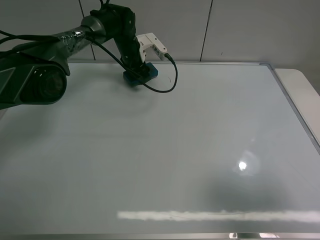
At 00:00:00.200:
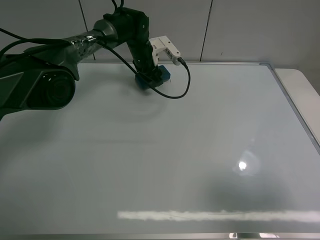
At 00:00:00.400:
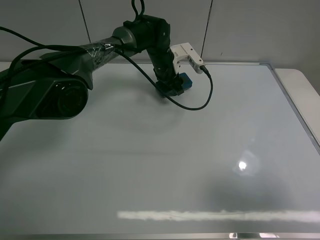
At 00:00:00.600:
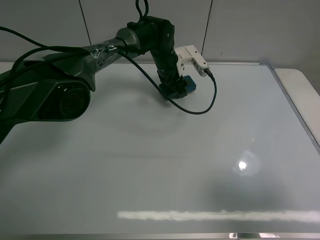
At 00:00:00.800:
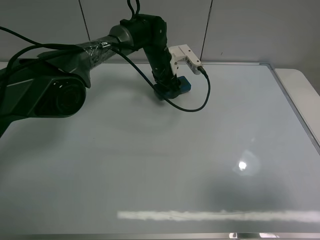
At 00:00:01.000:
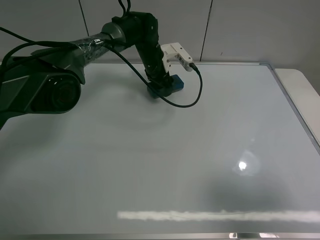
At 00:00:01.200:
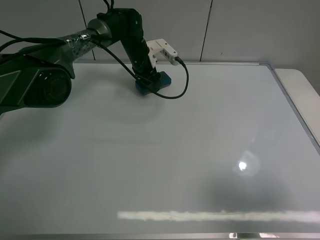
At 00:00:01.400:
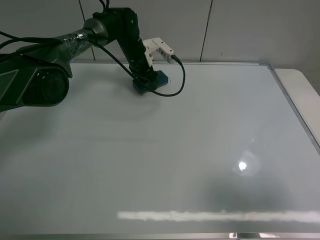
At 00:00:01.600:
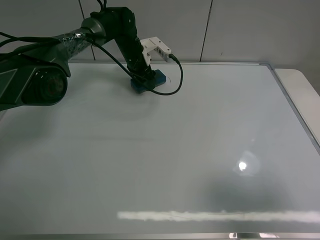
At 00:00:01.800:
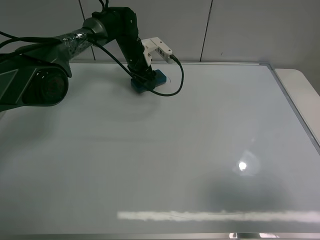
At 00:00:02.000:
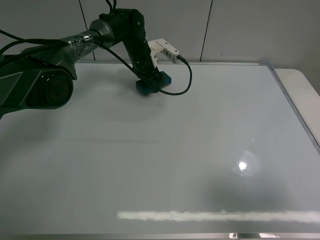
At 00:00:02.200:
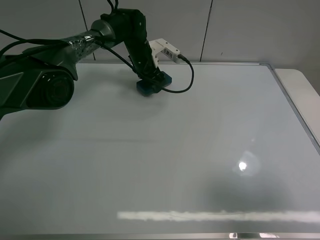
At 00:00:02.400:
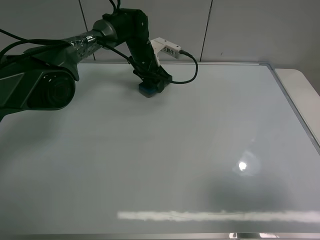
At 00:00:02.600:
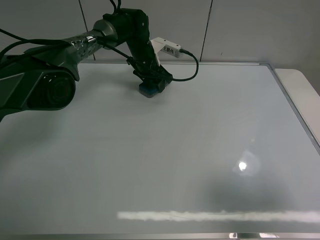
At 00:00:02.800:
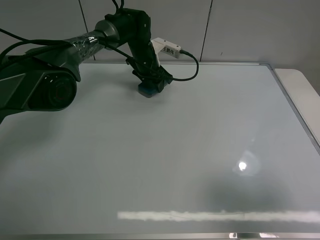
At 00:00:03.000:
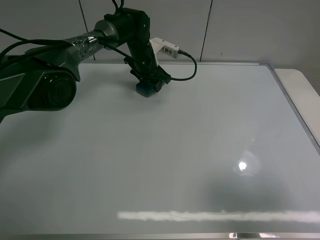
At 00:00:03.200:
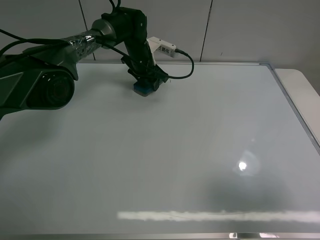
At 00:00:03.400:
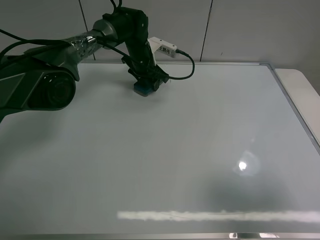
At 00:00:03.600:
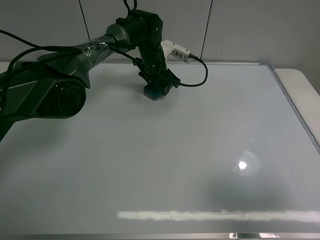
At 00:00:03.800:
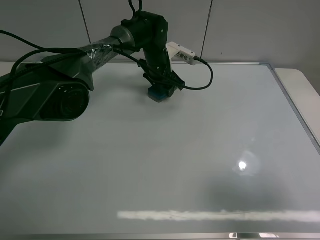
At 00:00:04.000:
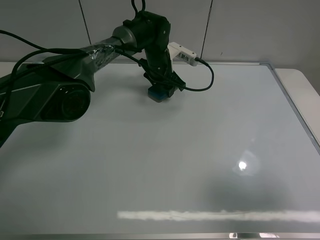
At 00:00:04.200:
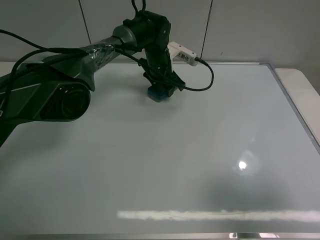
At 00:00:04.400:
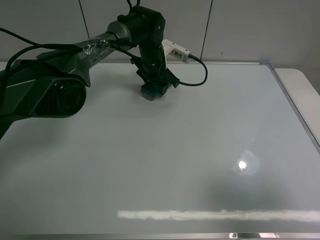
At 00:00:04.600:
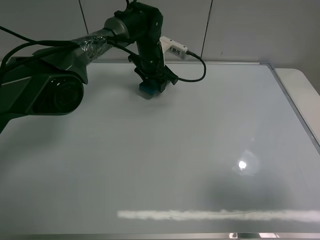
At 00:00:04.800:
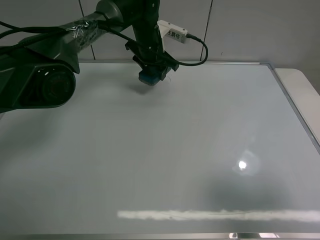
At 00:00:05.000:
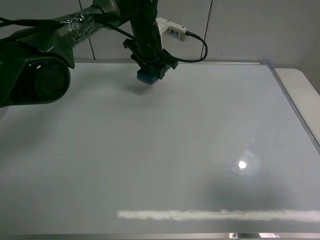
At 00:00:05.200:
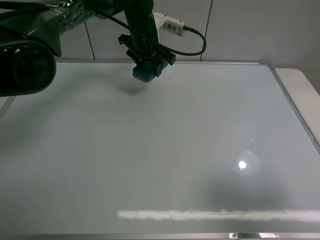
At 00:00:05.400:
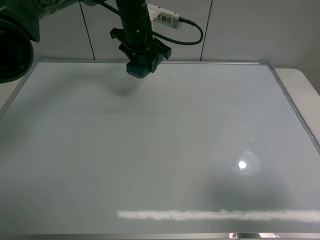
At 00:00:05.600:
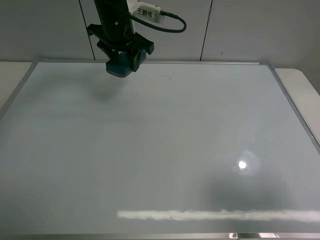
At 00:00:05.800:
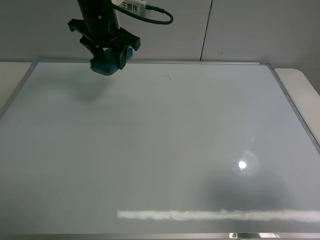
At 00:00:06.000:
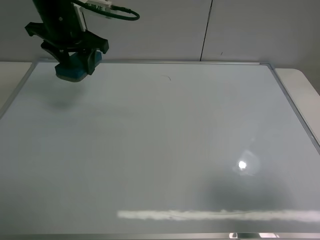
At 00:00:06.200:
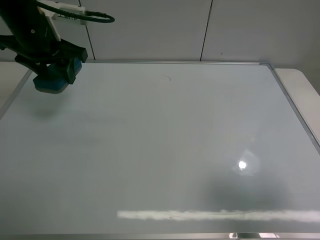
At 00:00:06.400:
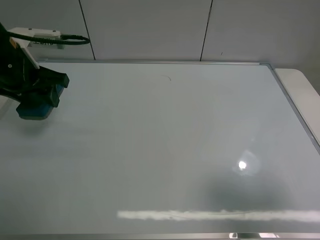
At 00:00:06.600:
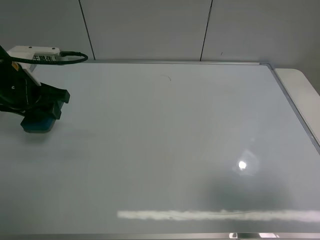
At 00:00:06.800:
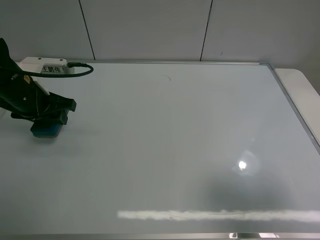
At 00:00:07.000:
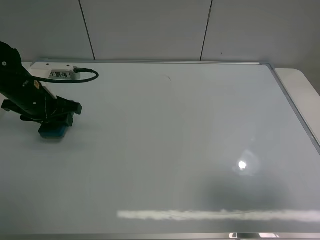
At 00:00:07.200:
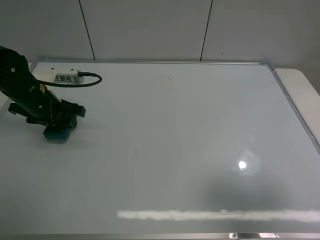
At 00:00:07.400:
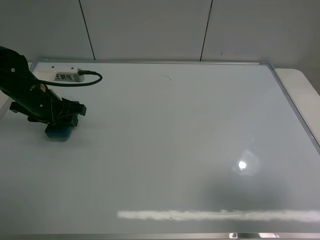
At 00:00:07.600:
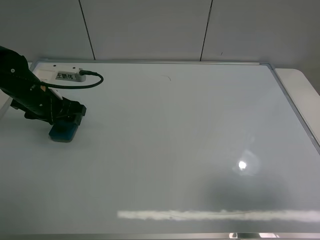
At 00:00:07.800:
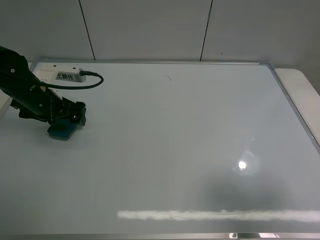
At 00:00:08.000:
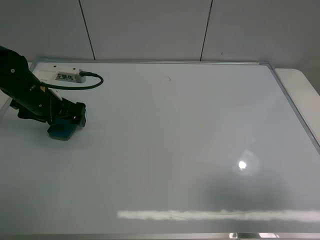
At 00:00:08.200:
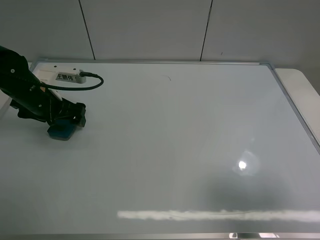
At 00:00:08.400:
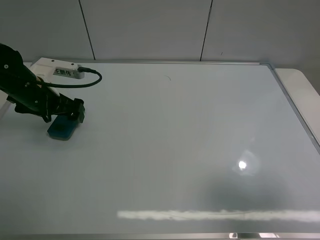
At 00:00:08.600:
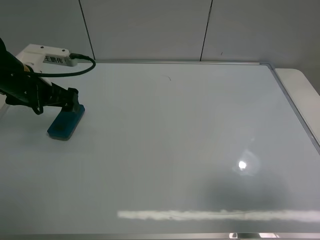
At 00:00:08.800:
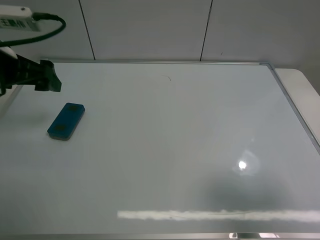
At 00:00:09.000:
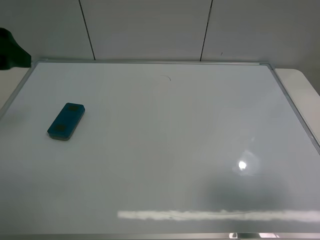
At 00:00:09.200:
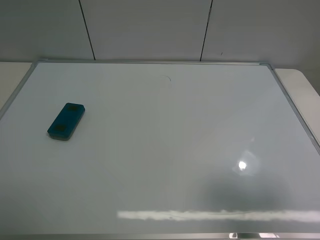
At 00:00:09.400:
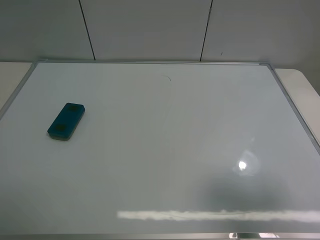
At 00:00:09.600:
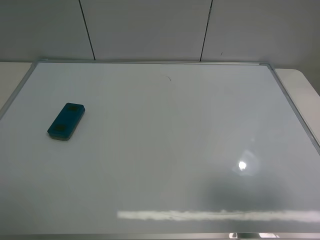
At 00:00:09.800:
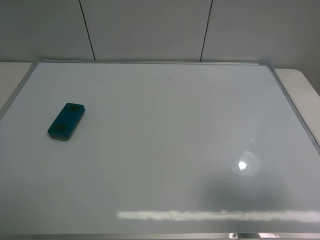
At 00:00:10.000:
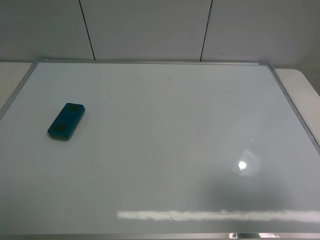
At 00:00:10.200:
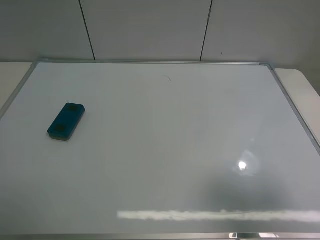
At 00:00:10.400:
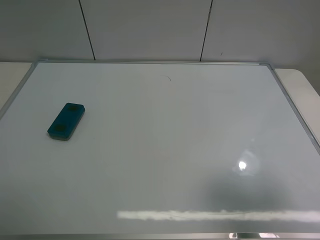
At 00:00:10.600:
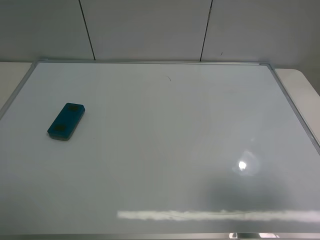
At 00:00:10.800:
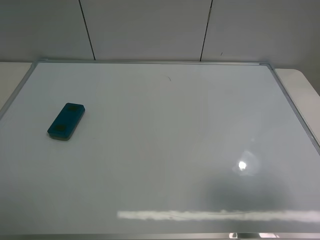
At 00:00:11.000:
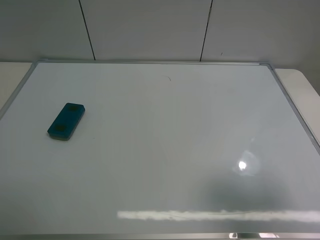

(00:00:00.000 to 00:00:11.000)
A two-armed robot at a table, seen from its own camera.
Task of the whole recording: use the left claw to pick up the whiteboard eraser, wipe the notes on the whiteboard clean, and then put them back in place.
Step, 00:00:00.000 - 00:00:04.000: Grasp the eraser and wipe the blackboard with the left gripper.
Step, 00:00:04.200 - 00:00:07.800: Place the eraser with the left gripper.
00:00:00.000 - 00:00:01.600: The left gripper goes to the right and returns, some 10 cm each way.
00:00:03.200 - 00:00:04.800: The left gripper is displaced upward by roughly 5 cm.
00:00:04.800 - 00:00:06.200: The left gripper is displaced to the left, backward and upward by some 25 cm.
00:00:06.200 - 00:00:07.800: The left gripper moves downward, some 10 cm, and opens up.
00:00:07.800 - 00:00:09.400: The left gripper shifts some 35 cm upward and backward.
